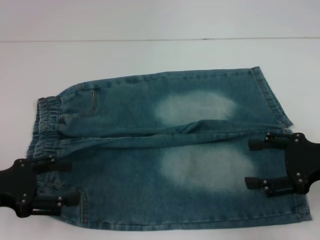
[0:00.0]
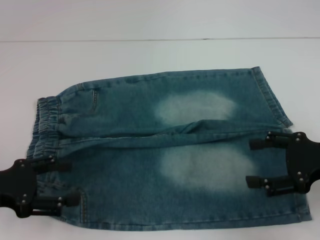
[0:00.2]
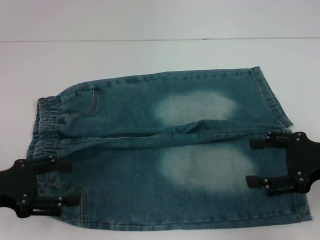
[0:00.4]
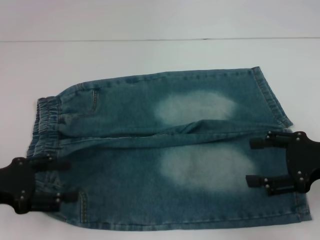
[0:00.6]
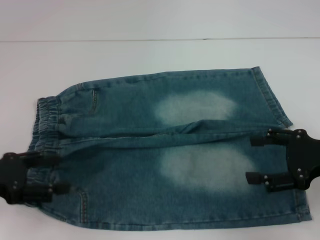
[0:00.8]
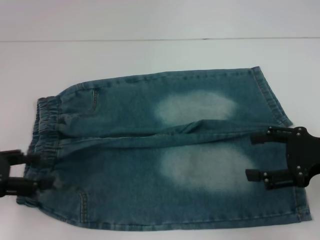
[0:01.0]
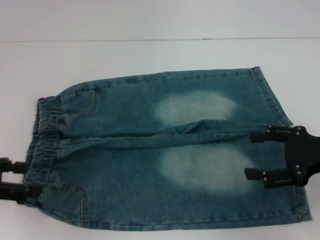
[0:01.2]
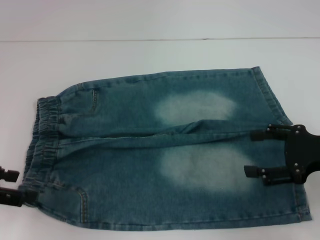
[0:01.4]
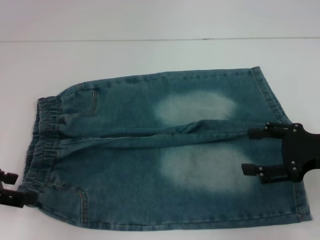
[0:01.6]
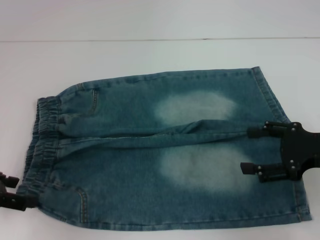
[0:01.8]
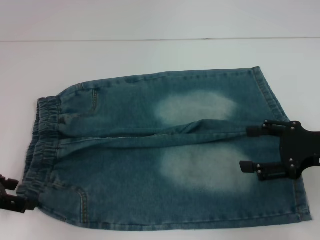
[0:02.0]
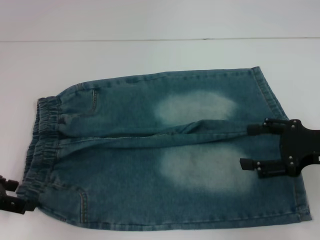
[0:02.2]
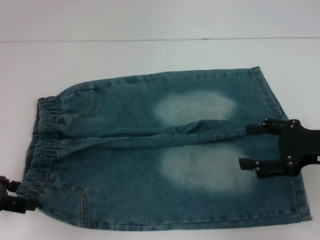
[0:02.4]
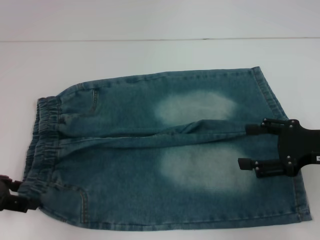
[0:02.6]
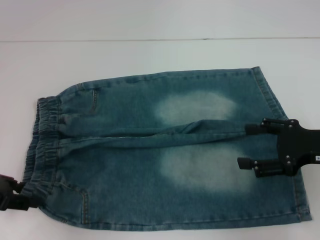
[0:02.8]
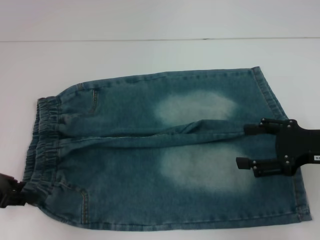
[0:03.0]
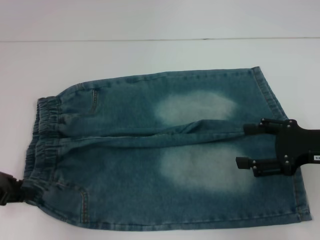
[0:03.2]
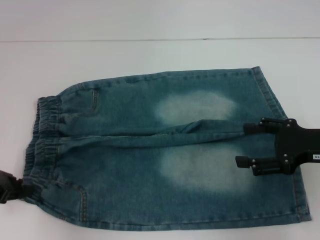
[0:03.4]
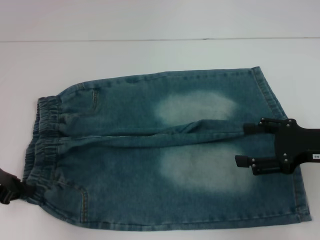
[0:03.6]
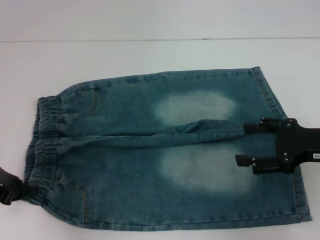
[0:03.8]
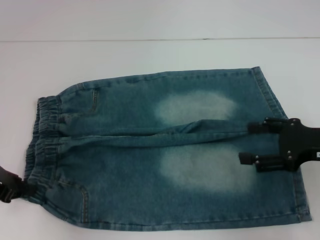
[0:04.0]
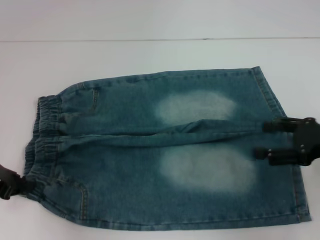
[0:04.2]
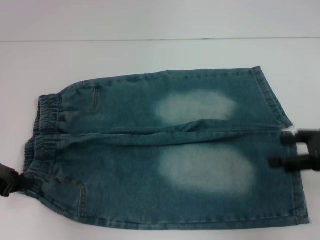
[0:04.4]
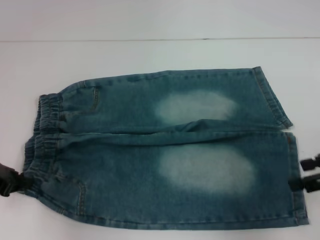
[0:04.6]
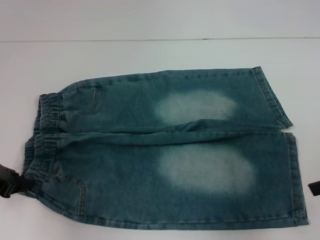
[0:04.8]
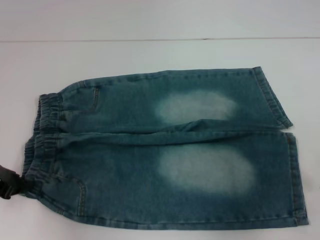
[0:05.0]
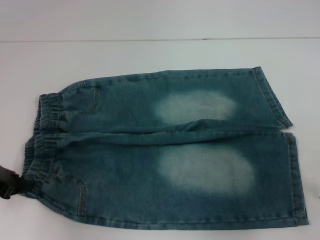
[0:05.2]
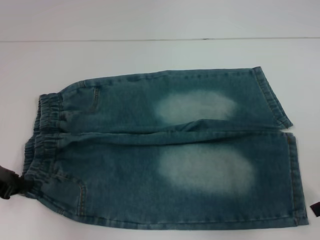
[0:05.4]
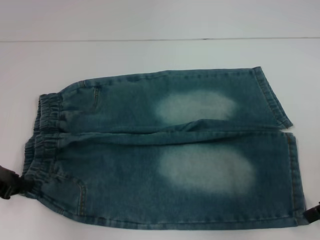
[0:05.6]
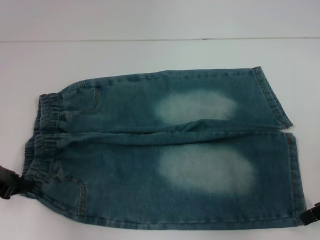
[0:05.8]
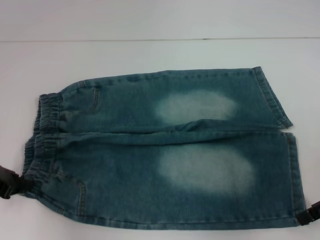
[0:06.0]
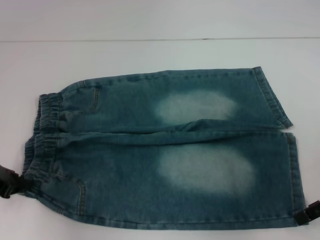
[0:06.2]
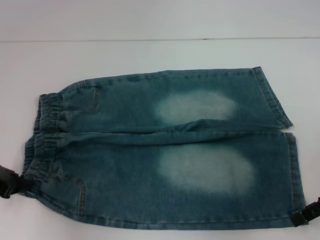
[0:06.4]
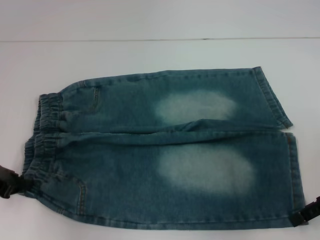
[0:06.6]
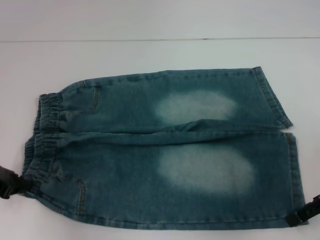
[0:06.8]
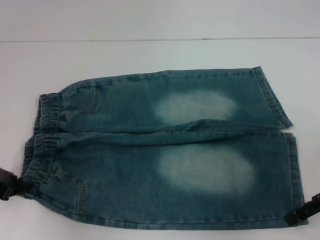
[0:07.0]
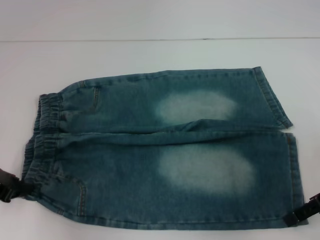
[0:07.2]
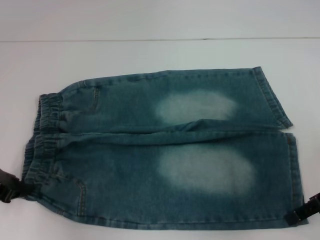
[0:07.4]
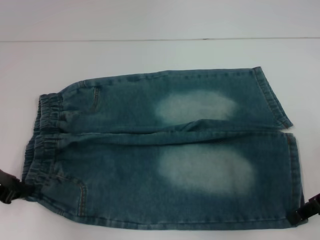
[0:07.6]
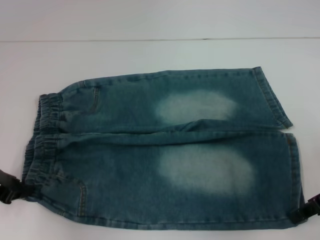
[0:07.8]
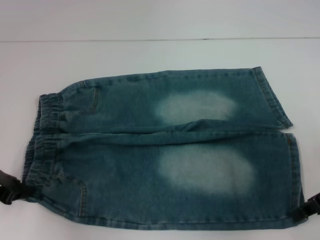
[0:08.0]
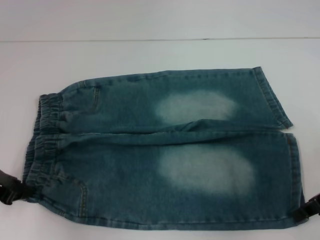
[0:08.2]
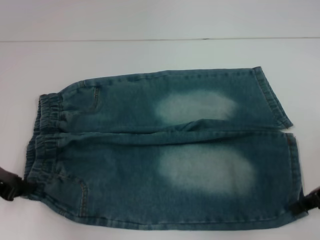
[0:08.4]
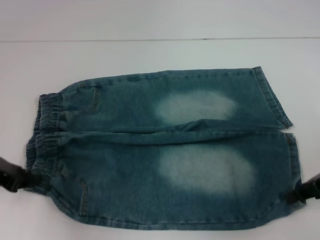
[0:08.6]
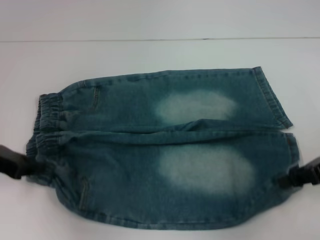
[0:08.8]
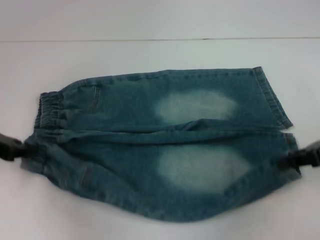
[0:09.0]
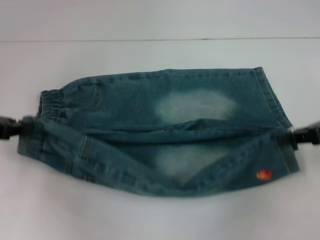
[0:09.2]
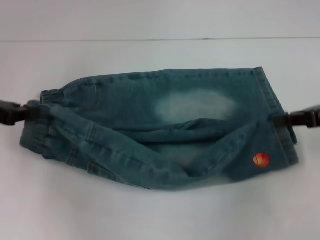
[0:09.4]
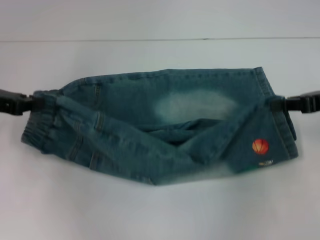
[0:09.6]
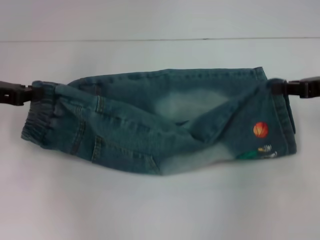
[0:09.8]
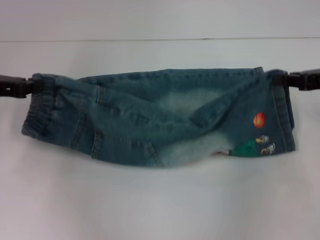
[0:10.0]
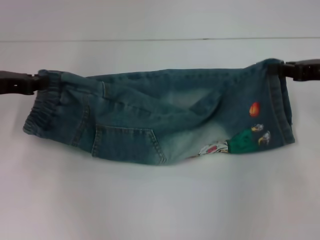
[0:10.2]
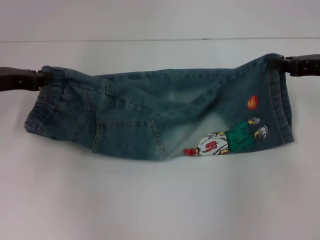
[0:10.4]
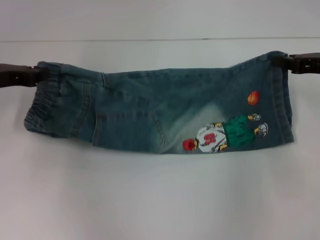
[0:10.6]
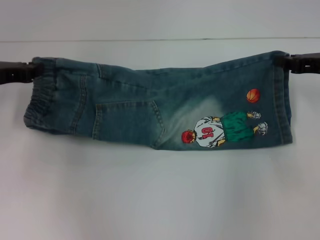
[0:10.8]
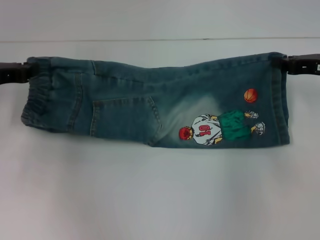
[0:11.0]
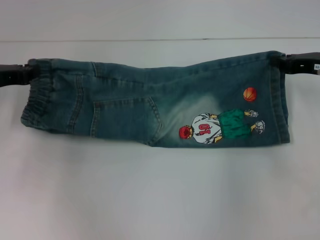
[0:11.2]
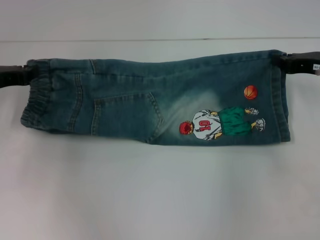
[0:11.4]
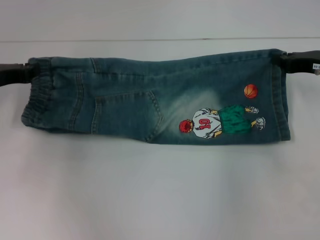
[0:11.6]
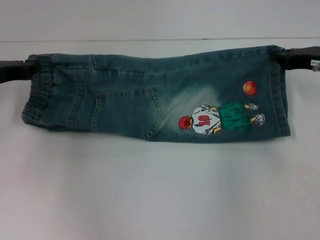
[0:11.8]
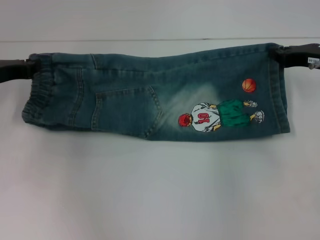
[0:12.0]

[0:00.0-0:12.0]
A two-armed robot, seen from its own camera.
Step, 0:00.0 to 0:03.4: Hold the lower left waistband with your left hand.
Step, 0:03.6 to 0:08.2: Grab the lower right pant leg with your right hand.
0:01.6 to 0:03.0: The grippers make only small movements.
0:03.0 to 0:04.4: The left gripper closes up.
0:06.0 to 0:07.6: The grippers make only small movements.
0:07.6 to 0:09.0: The right gripper closes its fingers.
0:09.0 to 0:10.4: The two grippers go roughly 5 cm forward.

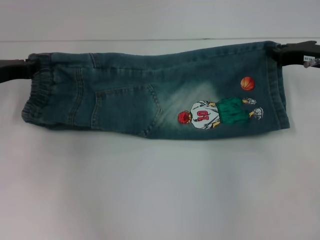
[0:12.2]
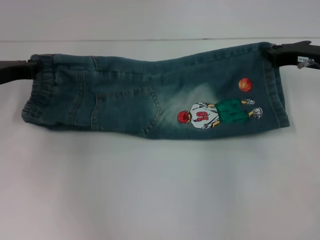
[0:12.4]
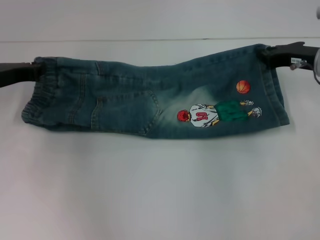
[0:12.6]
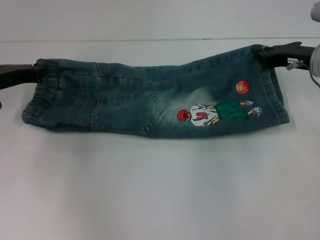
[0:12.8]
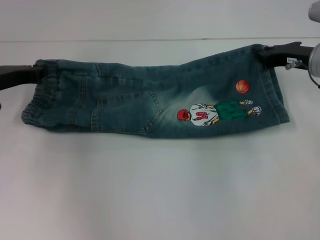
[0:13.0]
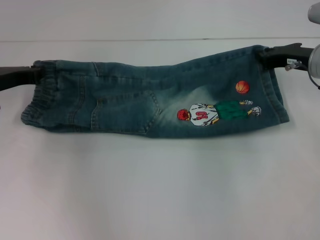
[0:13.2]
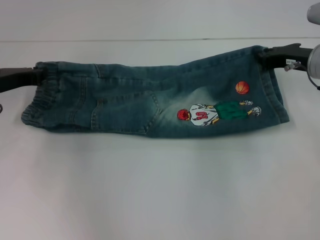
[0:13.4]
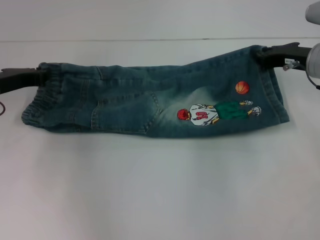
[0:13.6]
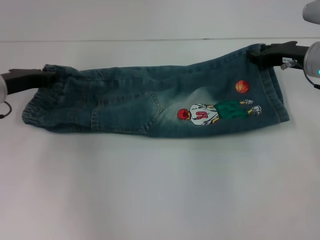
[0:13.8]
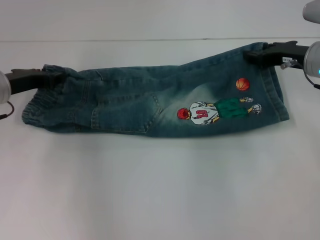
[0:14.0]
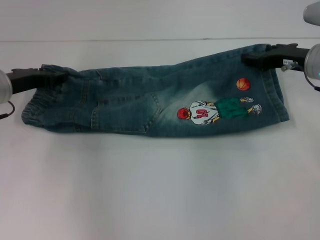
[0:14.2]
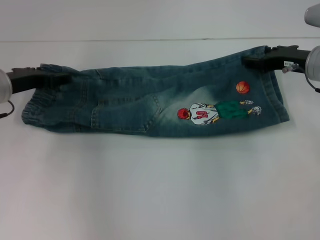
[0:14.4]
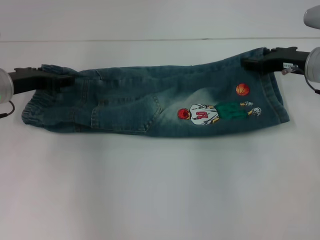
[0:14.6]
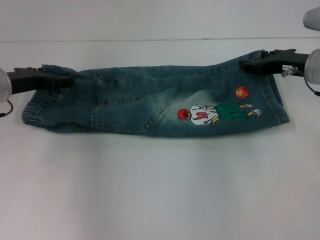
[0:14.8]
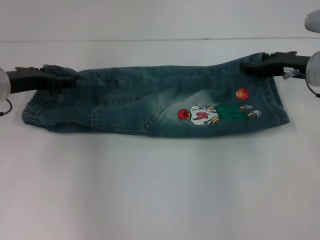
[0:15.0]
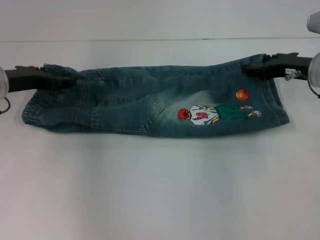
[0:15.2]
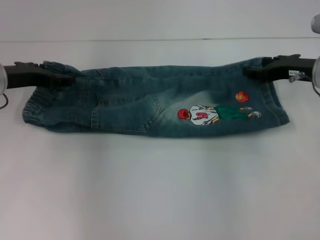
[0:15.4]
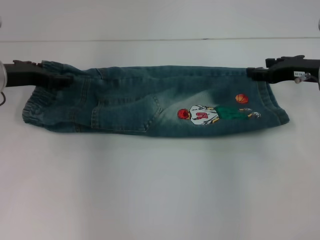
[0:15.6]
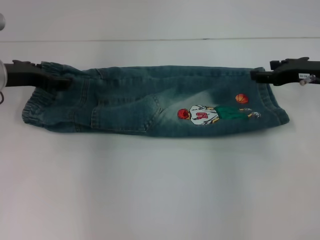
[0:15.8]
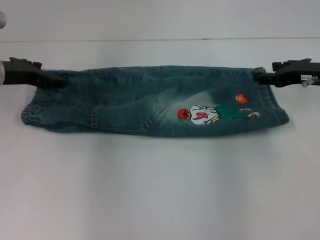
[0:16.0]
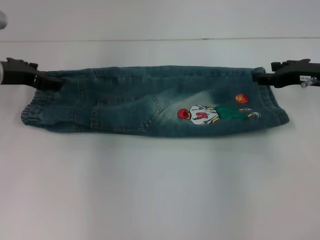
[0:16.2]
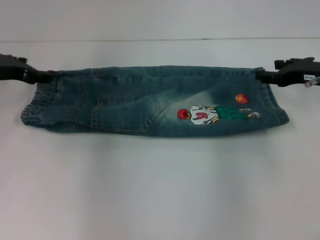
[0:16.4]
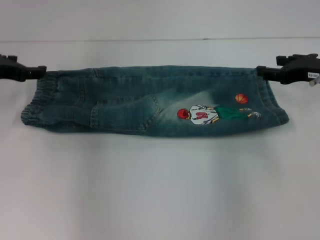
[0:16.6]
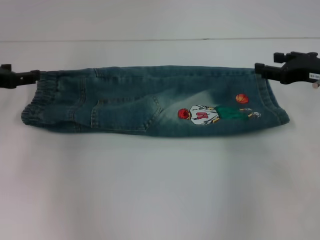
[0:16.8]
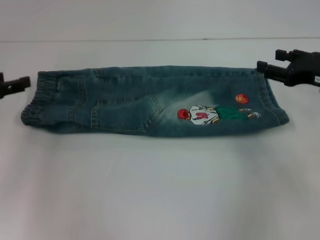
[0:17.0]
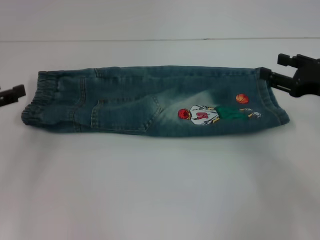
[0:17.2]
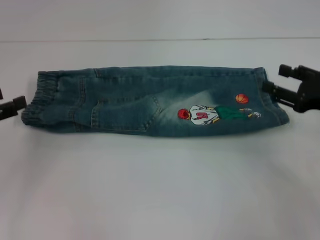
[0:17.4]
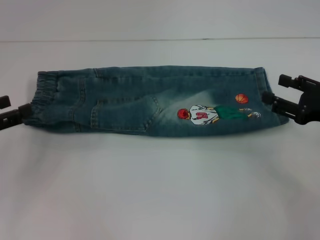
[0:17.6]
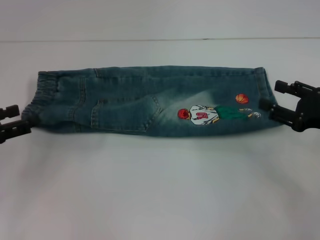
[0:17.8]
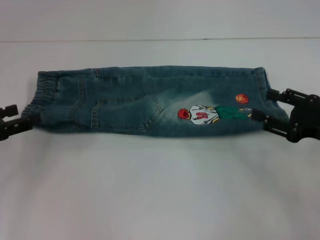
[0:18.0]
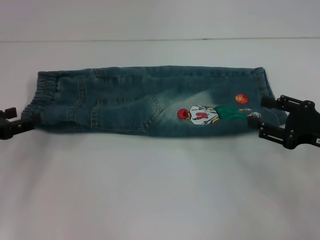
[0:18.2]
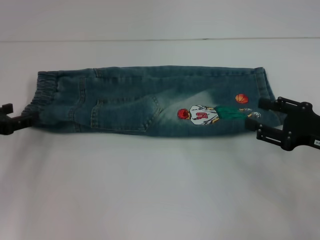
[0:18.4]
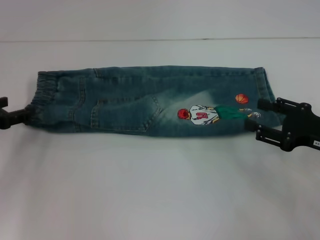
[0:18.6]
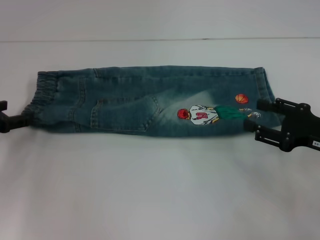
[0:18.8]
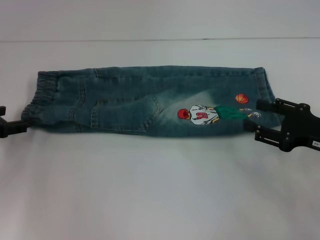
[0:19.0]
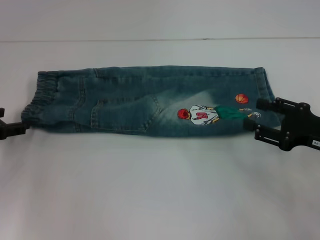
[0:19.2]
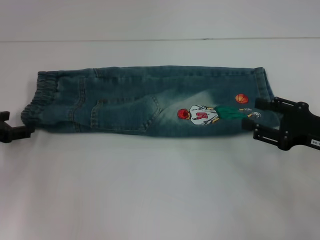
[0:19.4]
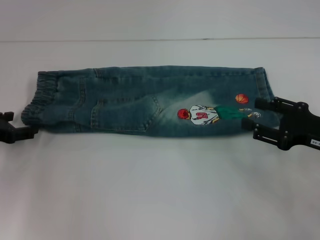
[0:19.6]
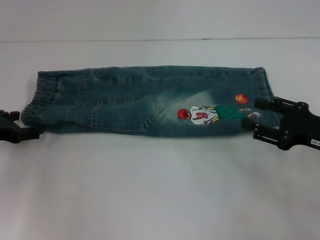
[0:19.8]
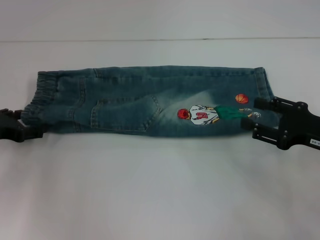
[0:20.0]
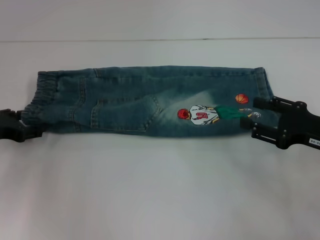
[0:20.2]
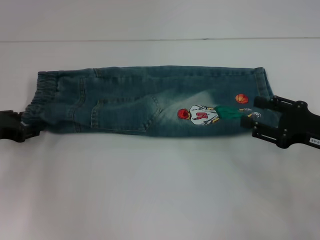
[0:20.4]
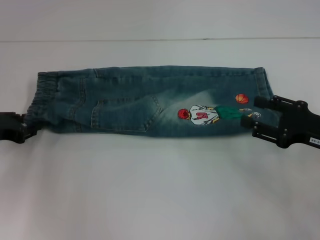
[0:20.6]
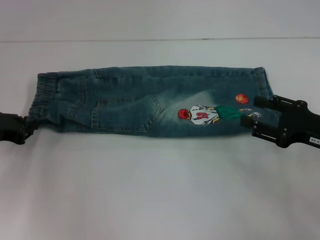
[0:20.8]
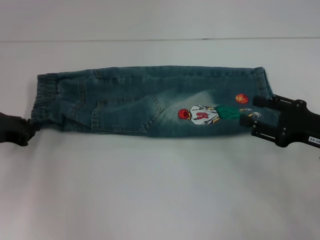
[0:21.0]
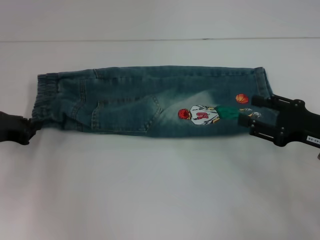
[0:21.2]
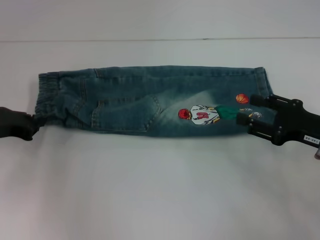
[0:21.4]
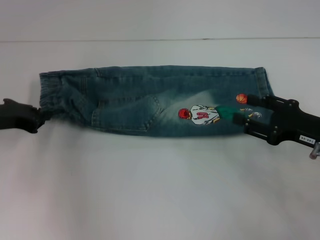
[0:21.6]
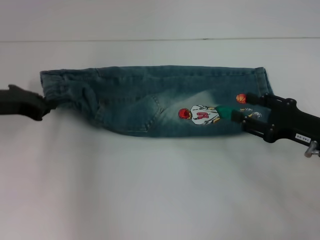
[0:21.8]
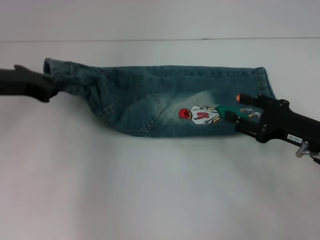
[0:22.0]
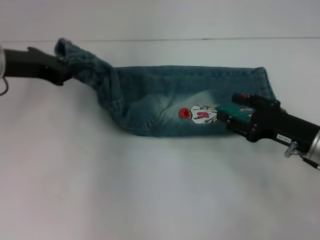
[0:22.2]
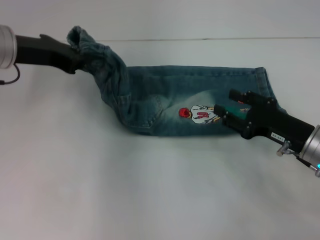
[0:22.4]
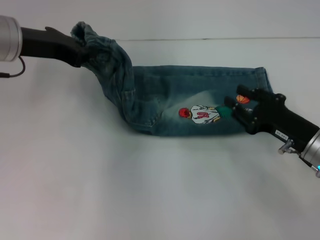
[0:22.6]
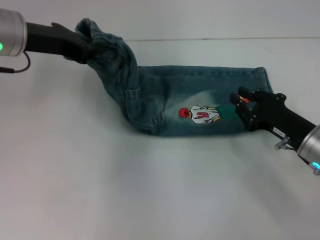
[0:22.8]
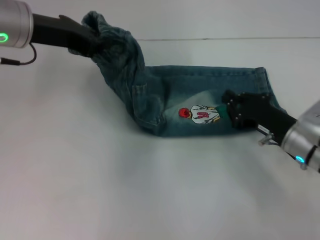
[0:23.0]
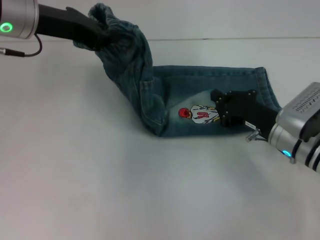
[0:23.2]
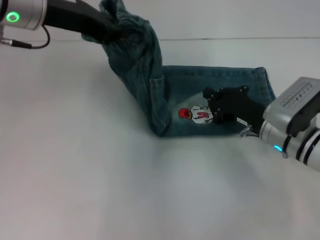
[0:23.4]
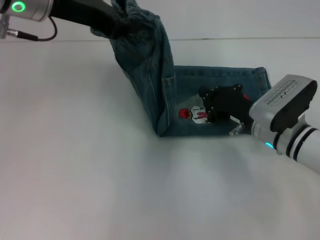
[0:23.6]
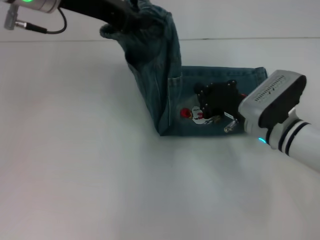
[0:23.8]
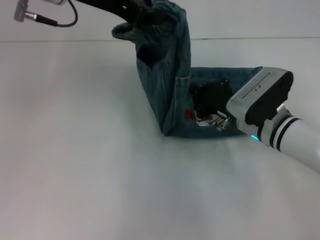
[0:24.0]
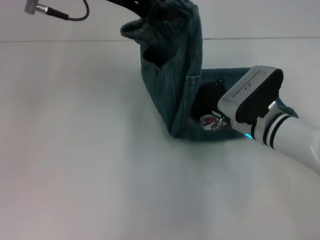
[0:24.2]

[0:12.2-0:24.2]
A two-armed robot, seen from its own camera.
Step, 0:12.2 to 0:16.0: Fold upward with your right hand.
Step, 0:16.2 to 0:21.2: Hold the waistband with your left hand.
0:12.2 to 0:13.8: The grippers move only a little.
0:13.8 to 0:15.2: The left gripper opens its fingers; the right gripper opens.
0:15.2 to 0:16.6: The grippers move only a little.
0:16.6 to 0:18.2: The right gripper travels backward by roughly 10 cm. The left gripper is displaced backward and downward by about 10 cm.
0:18.2 to 0:19.8: The grippers make only small movements.
0:19.8 to 0:21.2: The left gripper closes.
0:21.2 to 0:22.6: The right gripper shifts by approximately 5 cm. Meanwhile the left gripper shifts roughly 20 cm upward, to the right and forward.
0:22.6 to 0:24.2: The right gripper travels to the left and forward by some 10 cm, and closes, while the left gripper heads to the right and upward, covering about 15 cm.
